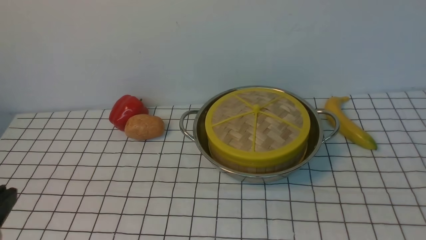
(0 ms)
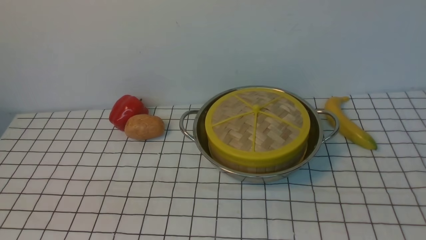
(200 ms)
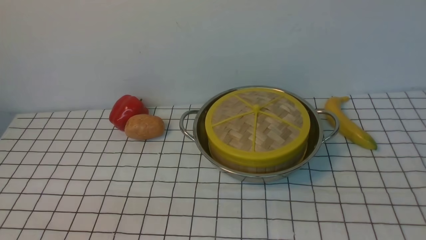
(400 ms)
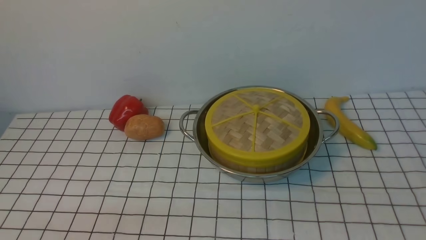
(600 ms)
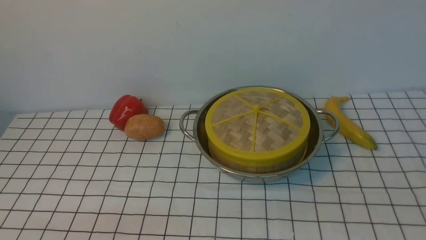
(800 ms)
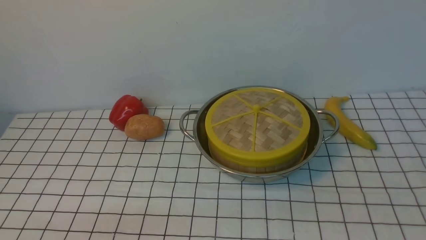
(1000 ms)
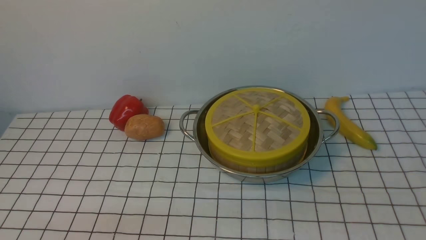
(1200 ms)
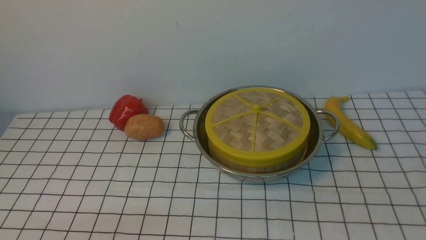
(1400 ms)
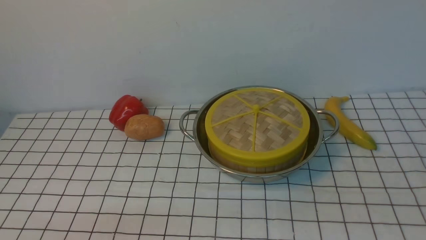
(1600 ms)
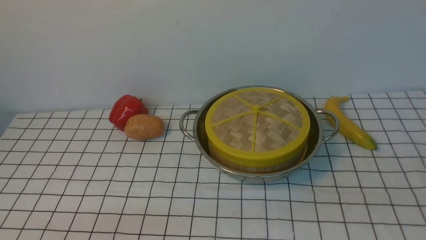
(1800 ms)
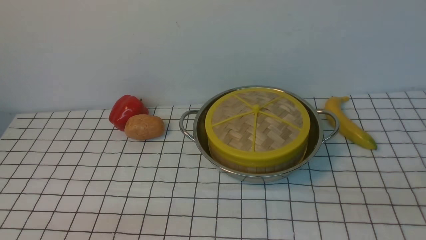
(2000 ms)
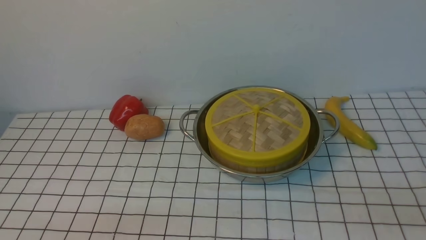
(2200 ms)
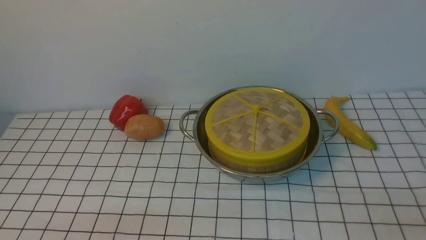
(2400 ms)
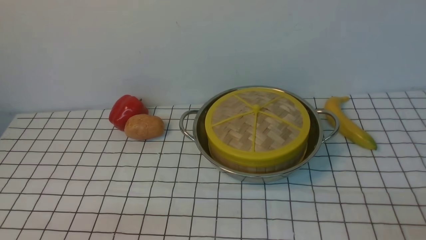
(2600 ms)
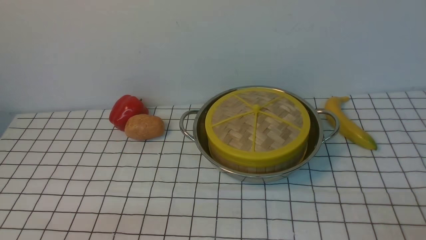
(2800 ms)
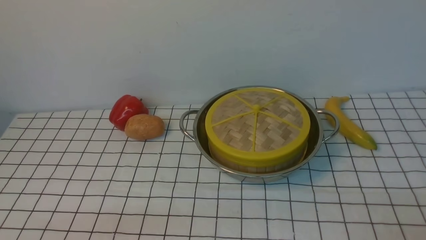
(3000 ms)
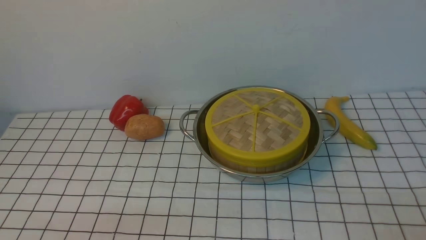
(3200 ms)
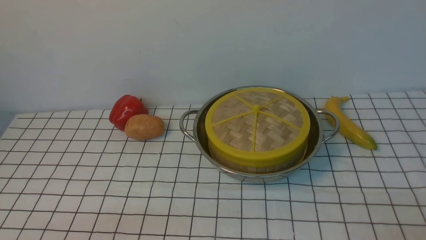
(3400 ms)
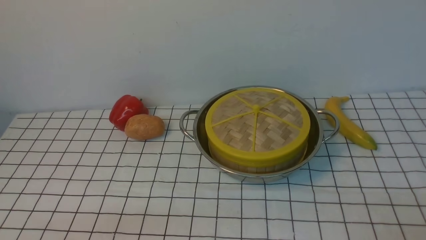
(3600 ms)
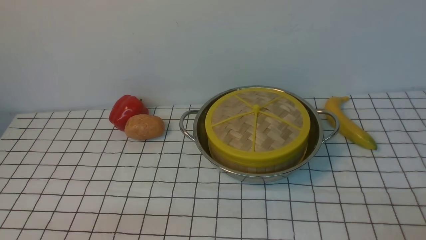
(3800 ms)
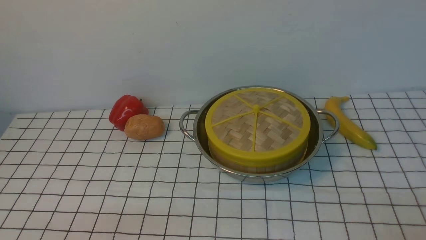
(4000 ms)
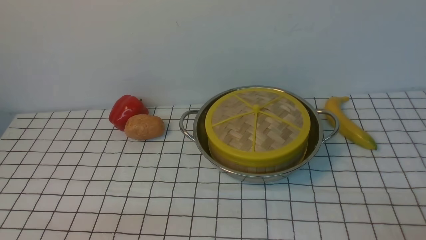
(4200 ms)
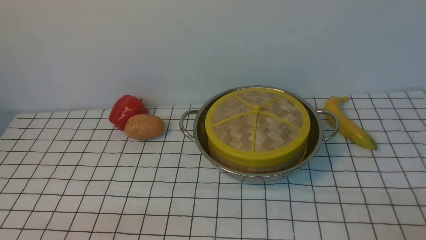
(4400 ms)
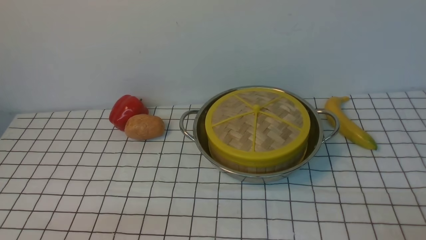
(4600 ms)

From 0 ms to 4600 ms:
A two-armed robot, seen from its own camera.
Task of the whole recording: place the steamer in the pot on the white tablecloth, and put the lid on the steamer.
From 3000 ms to 4600 ms: Neither gripper changes place.
